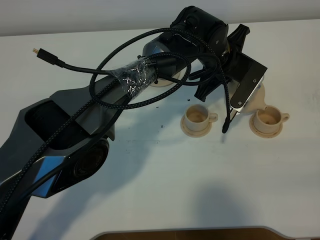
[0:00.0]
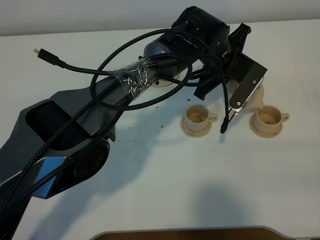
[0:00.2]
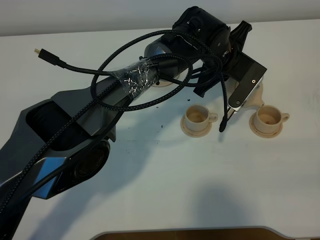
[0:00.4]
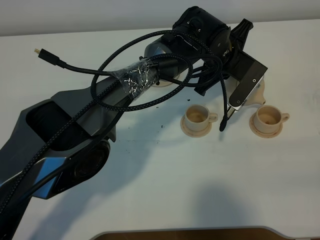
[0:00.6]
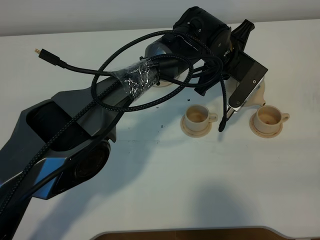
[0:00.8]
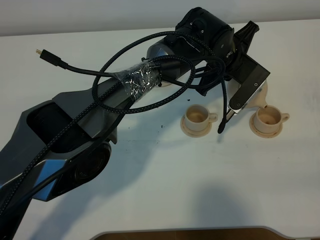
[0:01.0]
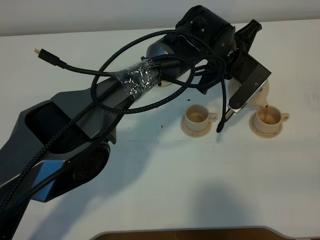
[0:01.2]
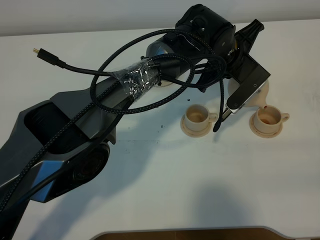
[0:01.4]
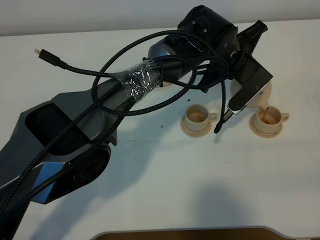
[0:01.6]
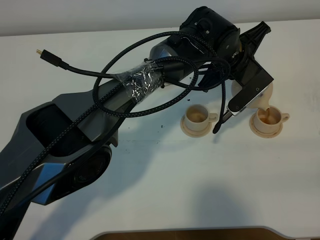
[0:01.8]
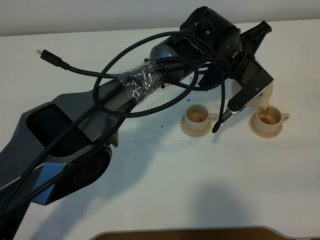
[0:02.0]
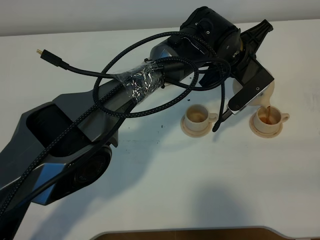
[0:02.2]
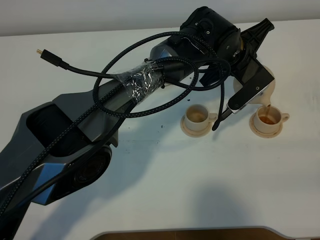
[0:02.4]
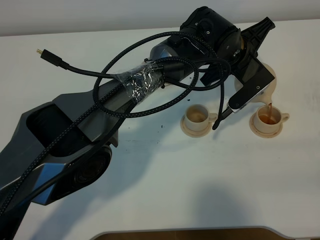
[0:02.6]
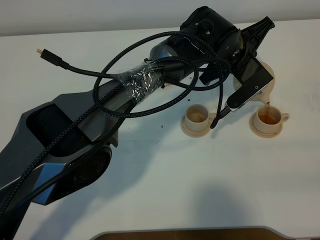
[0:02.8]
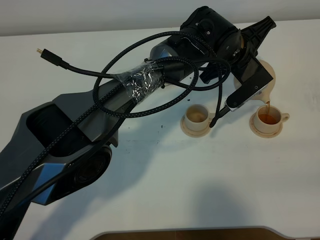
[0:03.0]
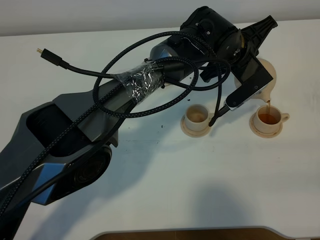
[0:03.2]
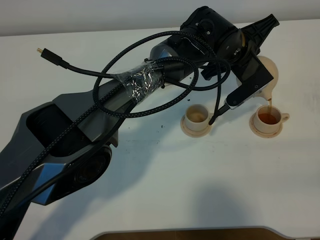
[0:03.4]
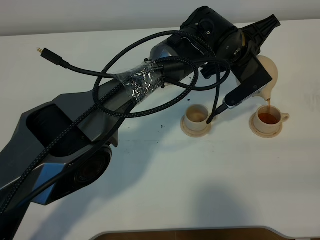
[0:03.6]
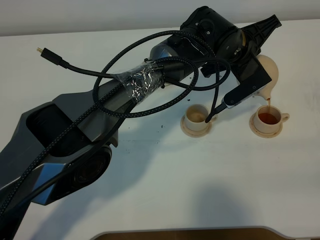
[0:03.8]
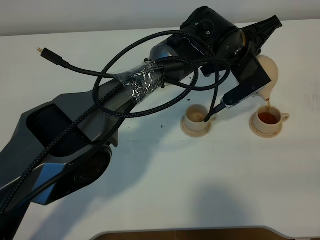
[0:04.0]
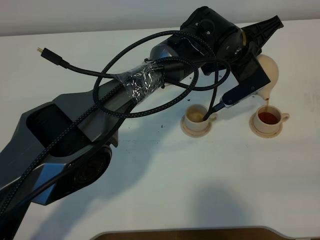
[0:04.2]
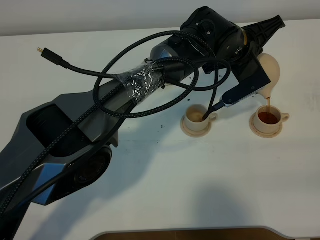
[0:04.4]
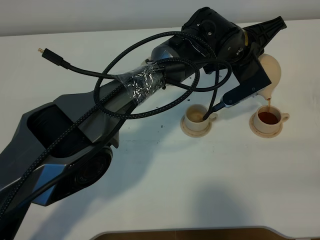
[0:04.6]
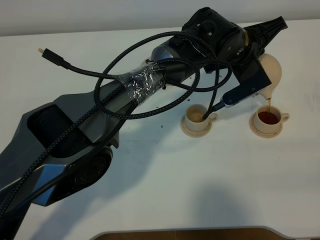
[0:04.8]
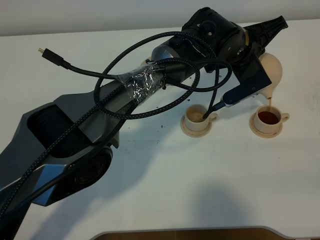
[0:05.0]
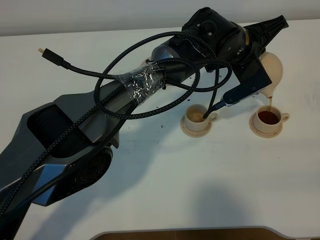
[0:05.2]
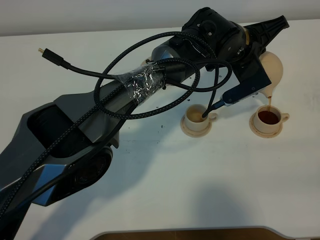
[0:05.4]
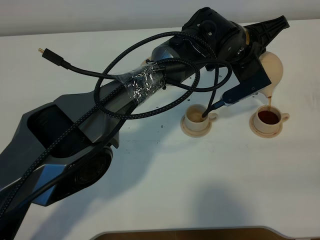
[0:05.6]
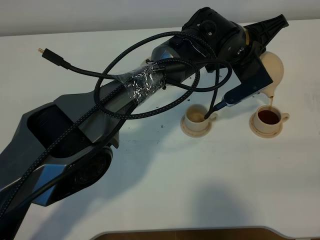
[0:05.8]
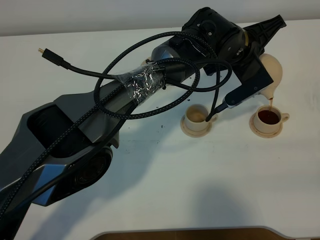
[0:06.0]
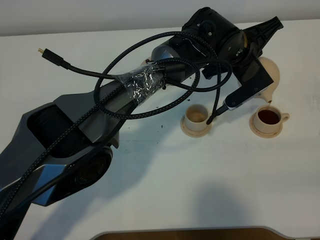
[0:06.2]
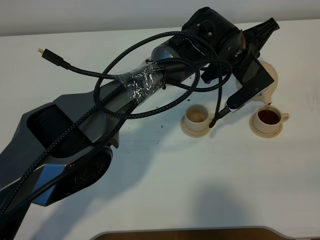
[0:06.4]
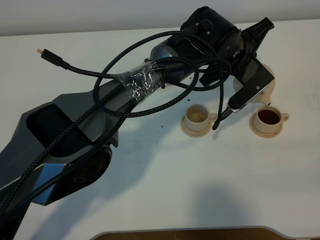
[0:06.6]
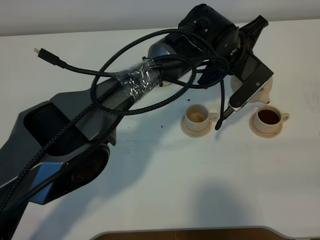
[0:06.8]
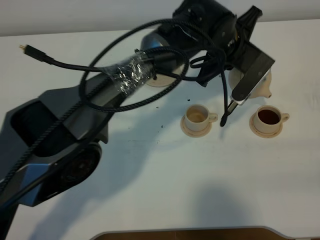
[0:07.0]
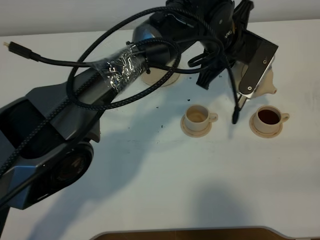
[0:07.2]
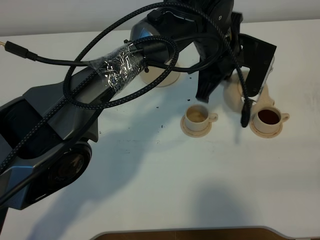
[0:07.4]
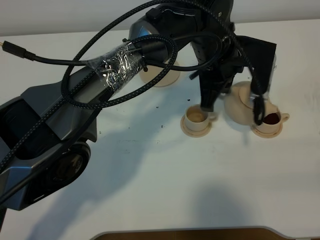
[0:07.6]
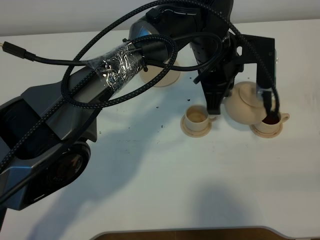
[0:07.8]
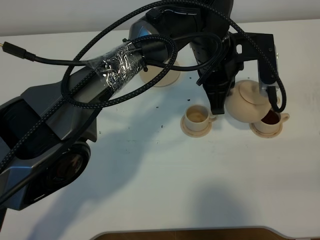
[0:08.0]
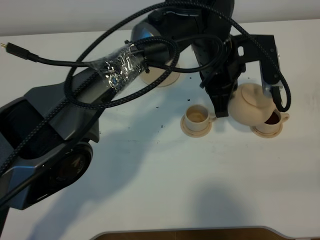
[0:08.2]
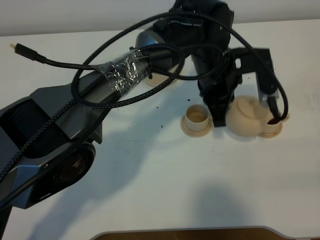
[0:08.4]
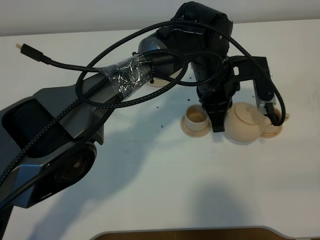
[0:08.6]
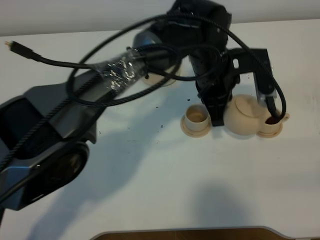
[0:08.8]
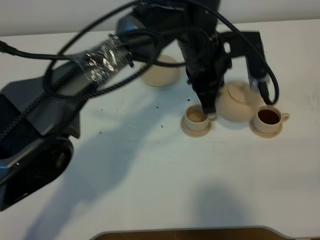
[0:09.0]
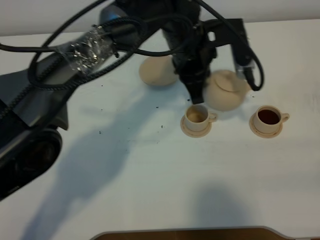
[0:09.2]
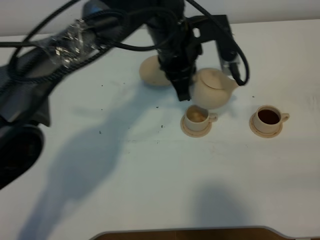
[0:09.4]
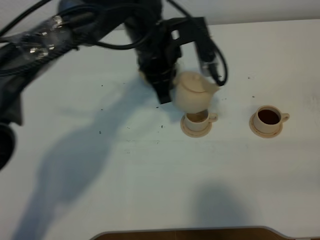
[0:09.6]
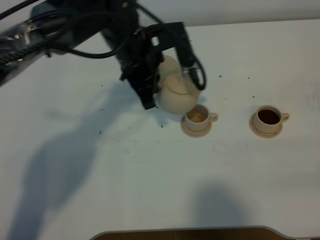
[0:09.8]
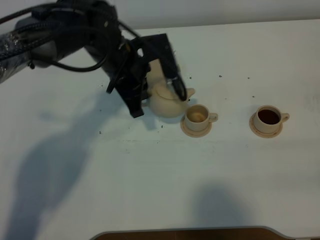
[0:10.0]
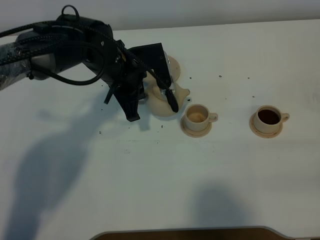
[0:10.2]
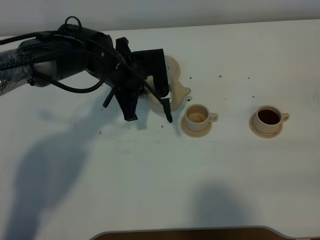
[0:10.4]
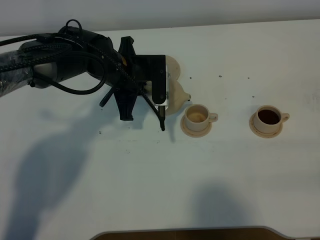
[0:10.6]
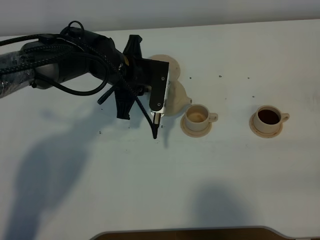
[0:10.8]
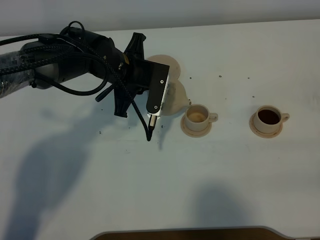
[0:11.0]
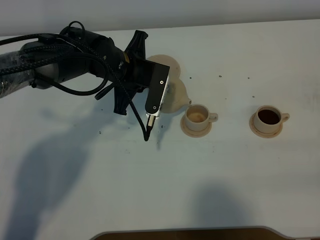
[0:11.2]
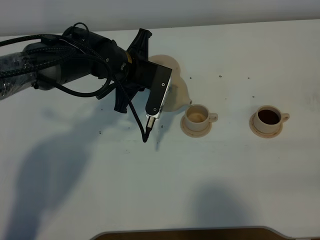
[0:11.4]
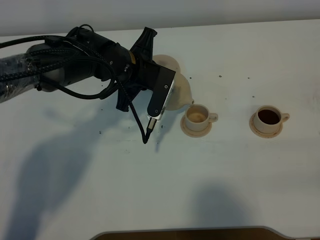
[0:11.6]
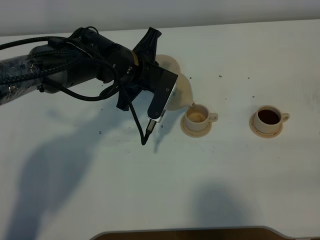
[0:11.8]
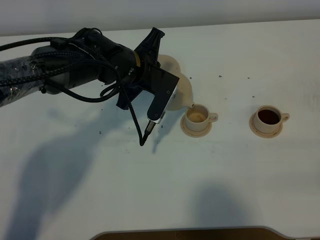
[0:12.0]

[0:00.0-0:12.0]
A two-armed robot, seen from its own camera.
Task of the whole recording: grasp the brown teapot and pour the tea into the two brown teacups one by one, put the brown teapot back in its original place.
0:00.0 to 0:01.6: The grippers move only a little.
0:01.6 to 0:03.0: There are only small adjustments of the grippers.
0:03.0 to 0:04.4: The grippers make only small movements.
0:04.4 to 0:06.0: The two grippers keep their place.
0:06.0 to 0:07.6: The left gripper ends up roughly 5 cm from where it was.
0:09.0 to 0:10.4: The left gripper shifts approximately 15 cm to the left and downward.

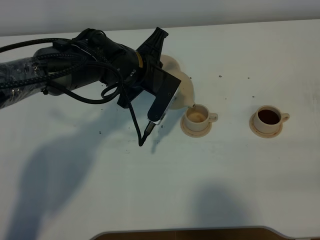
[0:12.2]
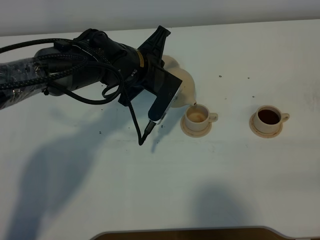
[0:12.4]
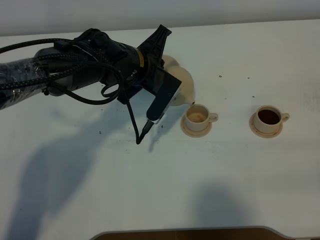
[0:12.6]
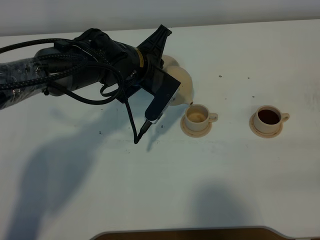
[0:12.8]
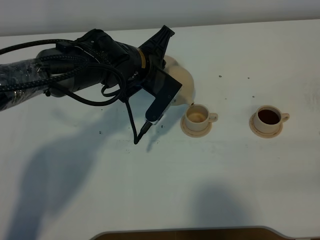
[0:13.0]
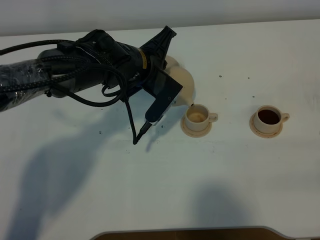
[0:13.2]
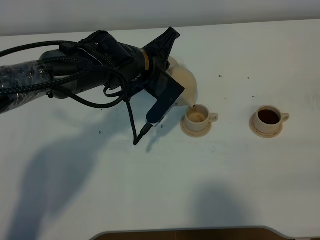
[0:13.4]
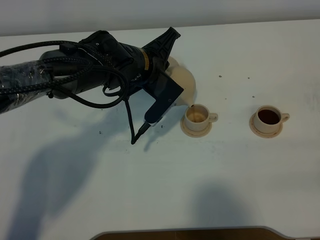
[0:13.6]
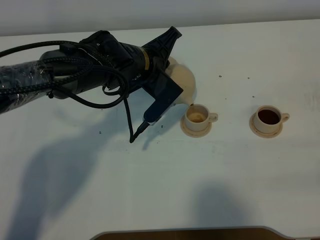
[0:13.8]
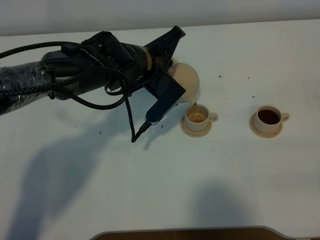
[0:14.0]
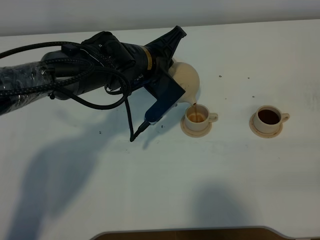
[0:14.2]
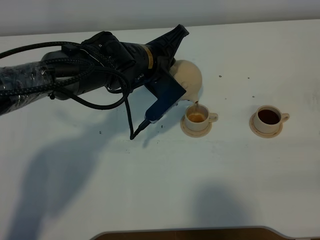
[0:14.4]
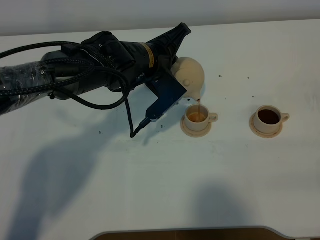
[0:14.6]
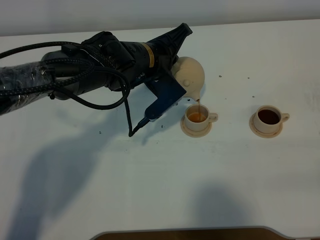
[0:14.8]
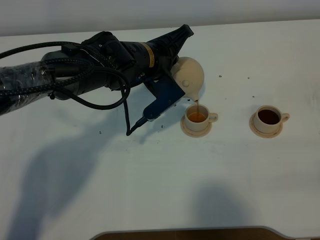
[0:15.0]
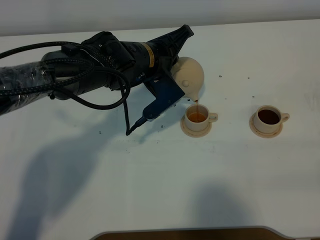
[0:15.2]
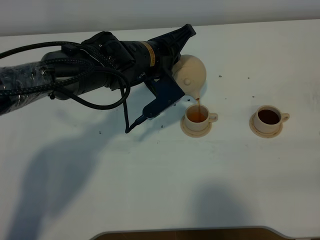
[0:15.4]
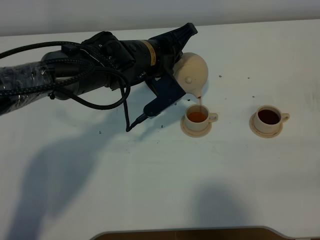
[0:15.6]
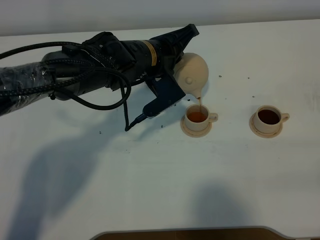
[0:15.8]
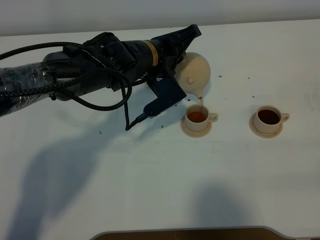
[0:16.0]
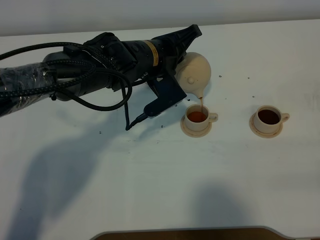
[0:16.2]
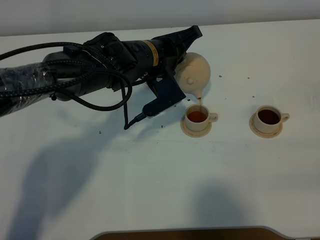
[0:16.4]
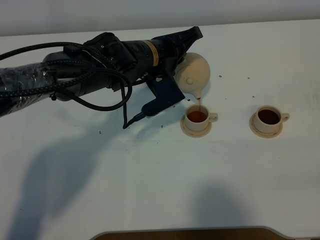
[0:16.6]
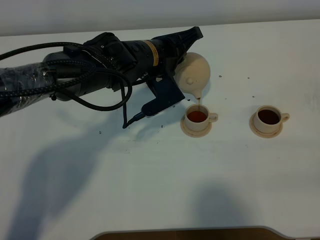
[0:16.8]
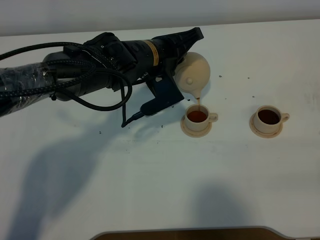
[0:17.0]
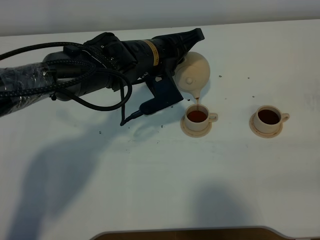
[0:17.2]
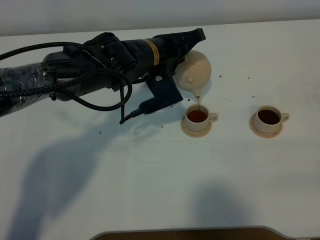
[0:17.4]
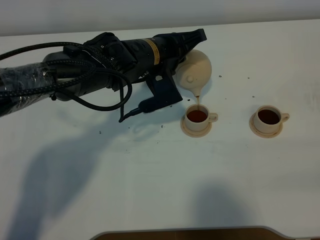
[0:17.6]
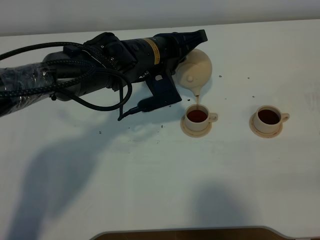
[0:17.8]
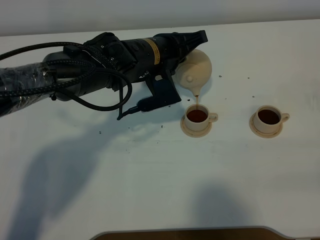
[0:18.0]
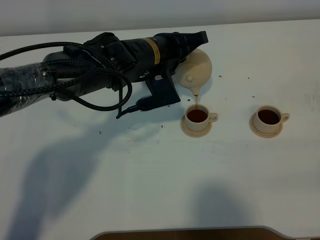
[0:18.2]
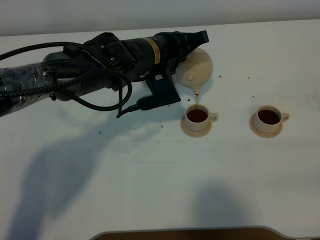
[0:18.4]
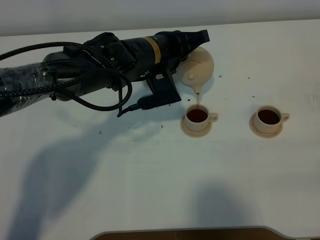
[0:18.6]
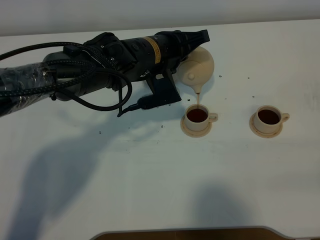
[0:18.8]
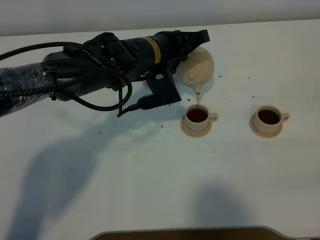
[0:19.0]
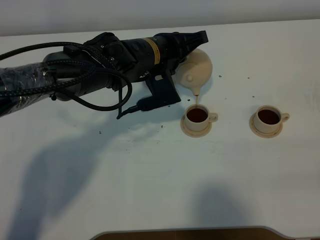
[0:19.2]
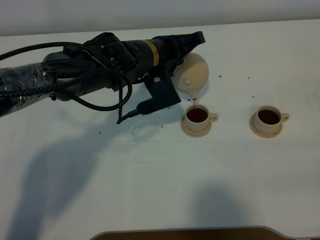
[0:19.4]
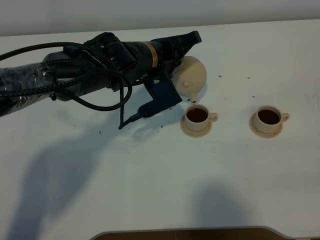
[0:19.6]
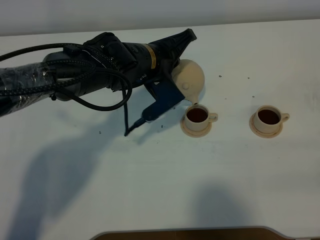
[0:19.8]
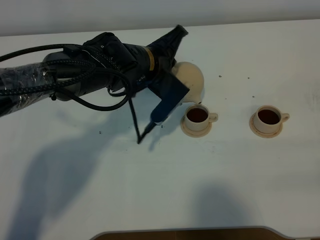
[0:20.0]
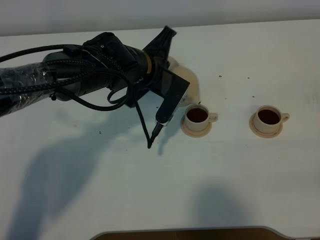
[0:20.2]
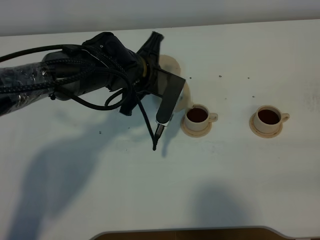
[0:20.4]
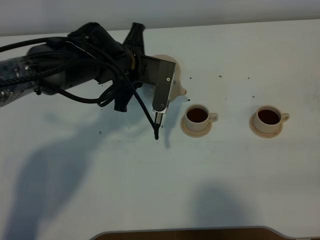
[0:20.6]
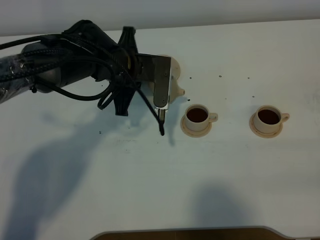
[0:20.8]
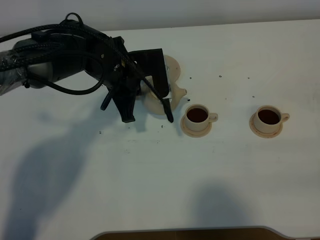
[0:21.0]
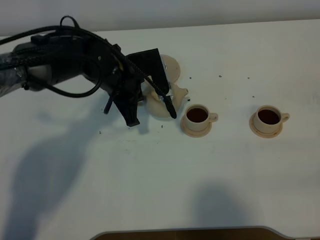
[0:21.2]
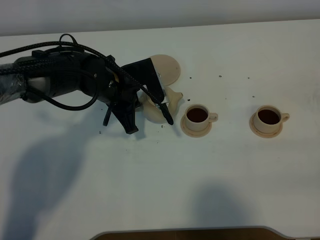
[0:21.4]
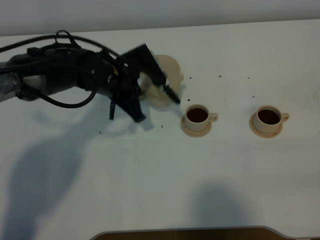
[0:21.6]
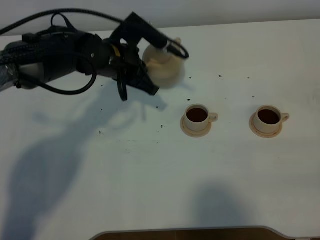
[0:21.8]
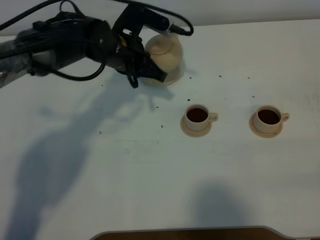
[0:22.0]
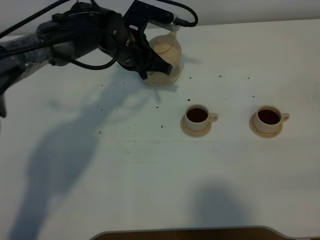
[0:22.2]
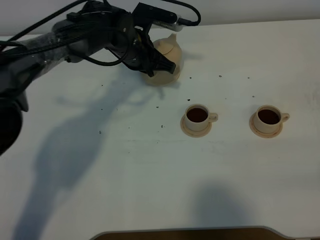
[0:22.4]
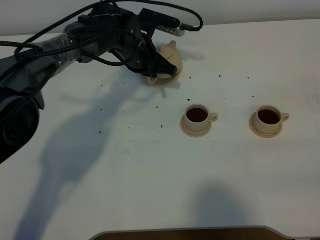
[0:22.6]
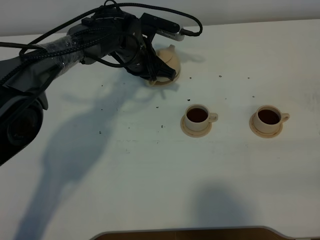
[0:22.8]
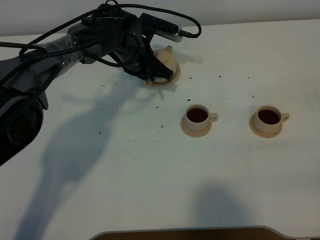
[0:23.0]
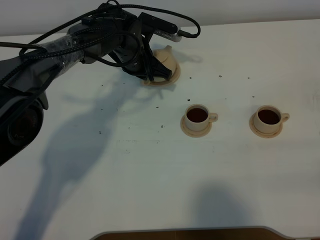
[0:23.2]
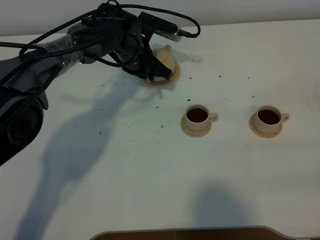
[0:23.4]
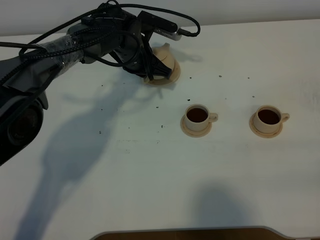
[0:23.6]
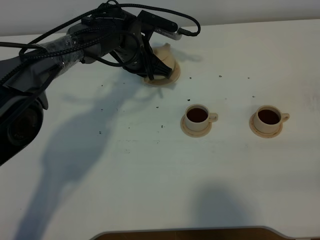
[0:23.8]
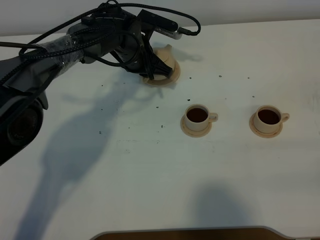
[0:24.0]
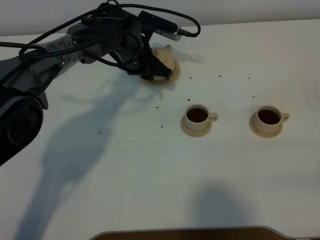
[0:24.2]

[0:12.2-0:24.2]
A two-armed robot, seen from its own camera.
Task of the whole recording: grasp the brown teapot and pour the tea into the two brown teacups one by one, put the brown teapot back in its original place.
Step, 0:12.2 to 0:20.0: Pour tea into the teacup with the left gripper.
0:12.2 to 0:13.8: The grippers make only small movements.
0:13.8 to 0:15.2: The grippers make only small movements.
0:15.2 to 0:16.6: The grippers stay close to where they were, moving slightly.
0:16.6 to 0:18.2: The grippers make only small movements.
0:19.8 to 0:21.2: The left gripper travels to the left by about 5 cm.
0:21.2 to 0:22.6: The left gripper shifts approximately 10 cm forward.
0:22.6 to 0:24.2: The left gripper opens its fingers.
